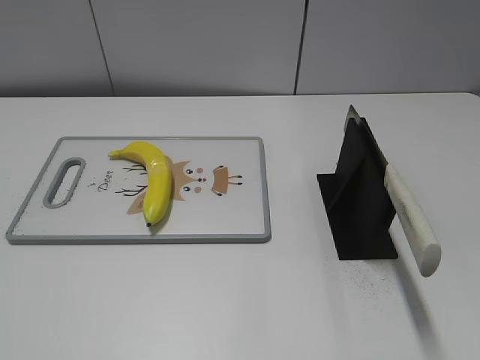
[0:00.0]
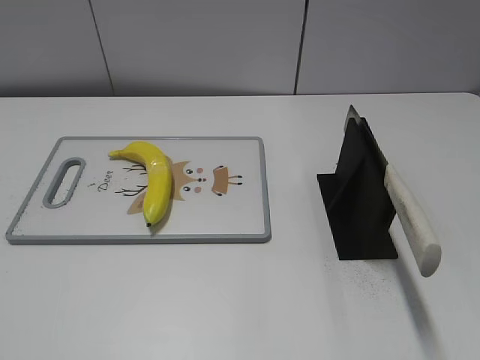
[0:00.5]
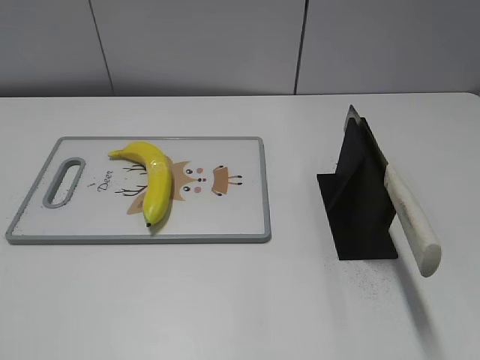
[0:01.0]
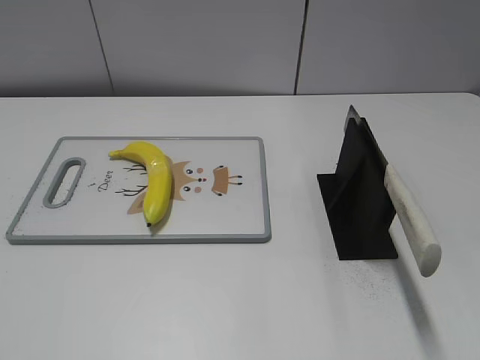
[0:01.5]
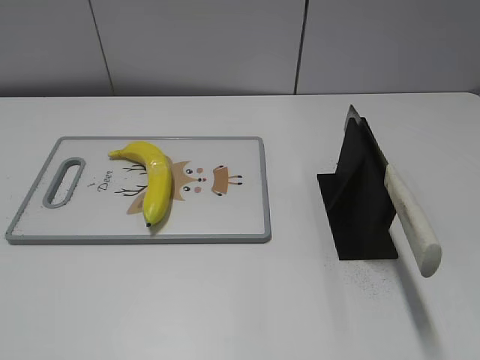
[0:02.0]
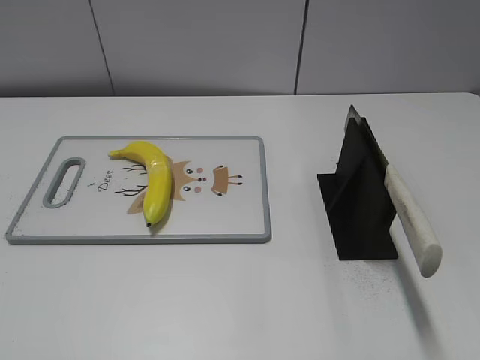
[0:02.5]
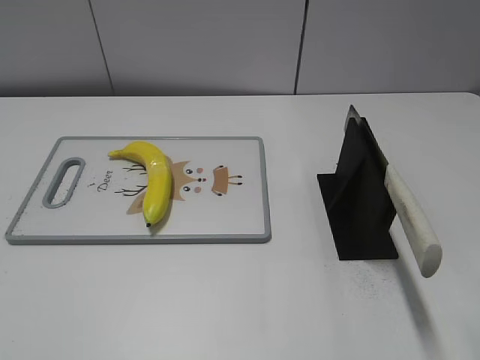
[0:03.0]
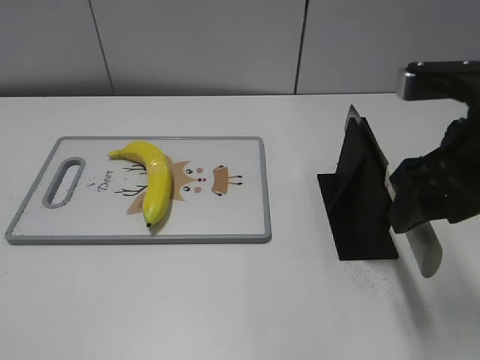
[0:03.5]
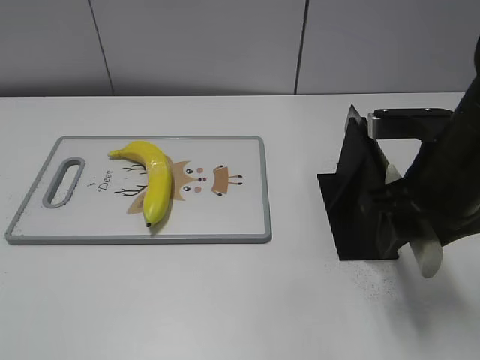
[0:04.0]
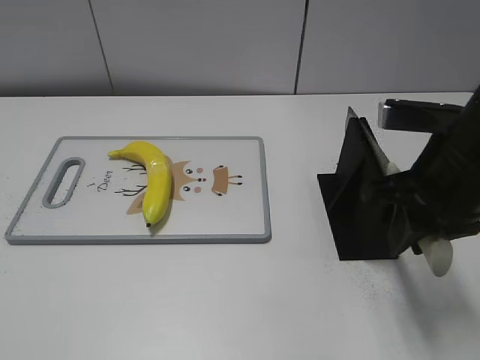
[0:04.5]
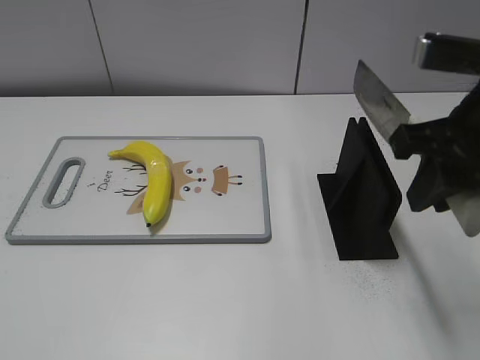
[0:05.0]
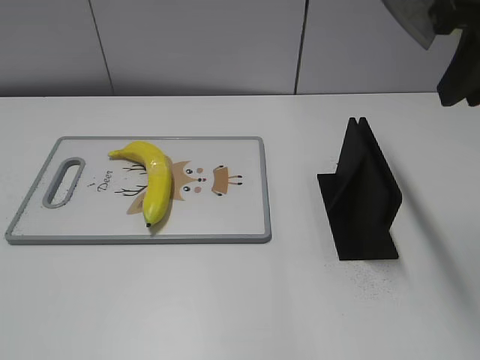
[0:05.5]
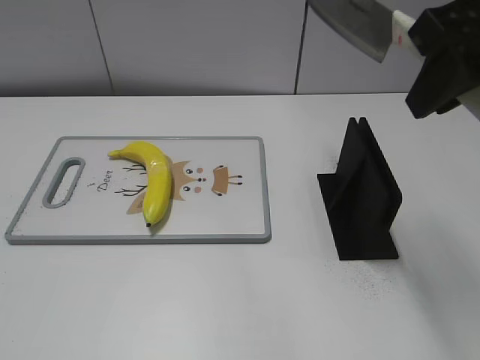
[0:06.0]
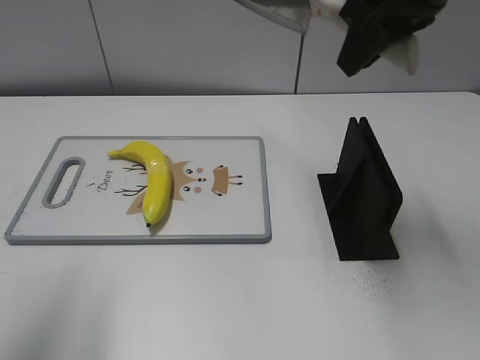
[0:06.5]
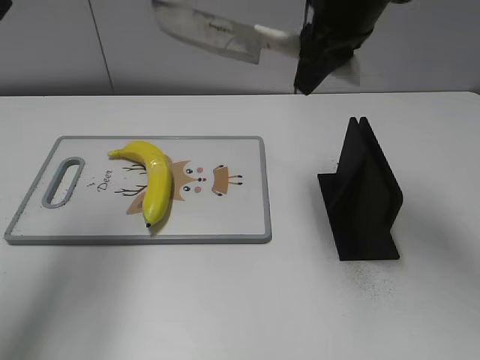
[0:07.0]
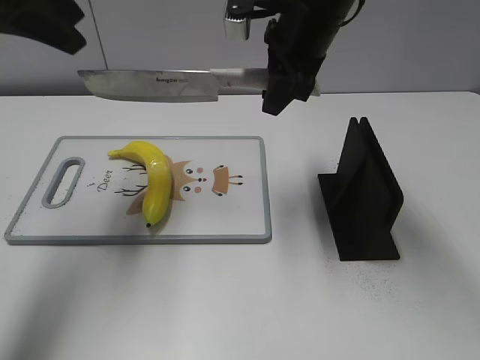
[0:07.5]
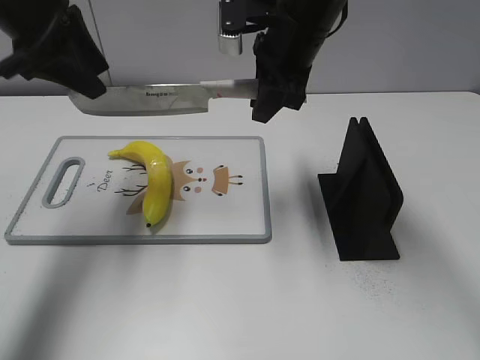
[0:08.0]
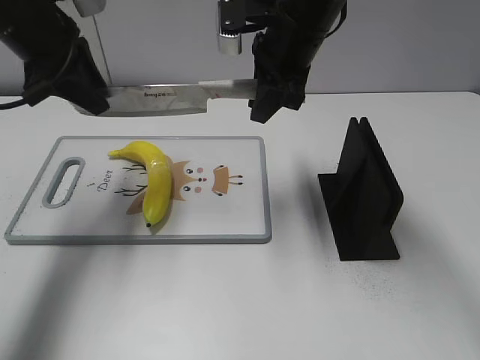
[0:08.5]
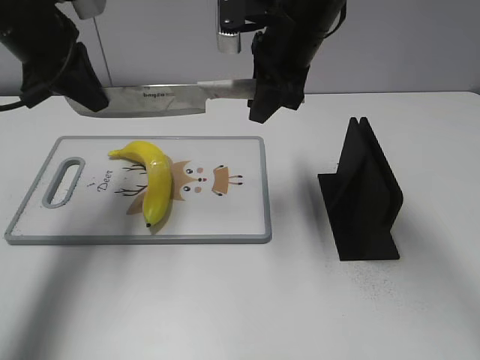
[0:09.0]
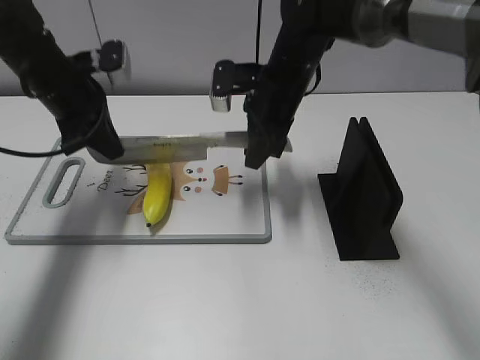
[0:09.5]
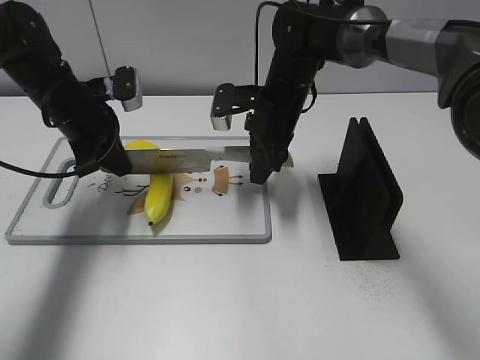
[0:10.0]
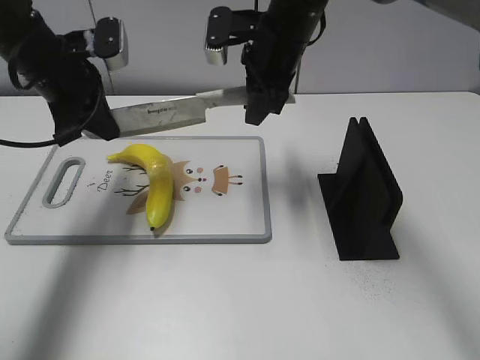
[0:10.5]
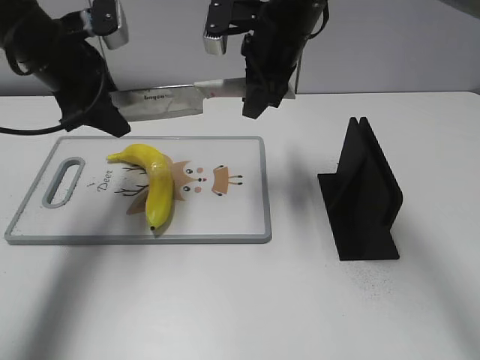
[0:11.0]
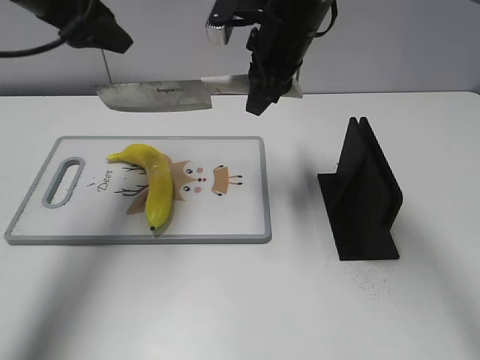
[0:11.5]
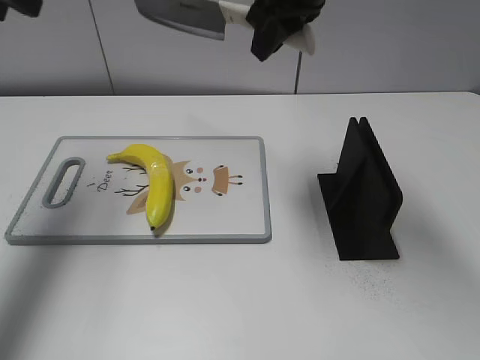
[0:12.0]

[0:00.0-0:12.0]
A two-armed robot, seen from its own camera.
Task of the whole recording: cut plastic banana.
Step, 0:00.0 to 0:05.0: Grab the knife handle with your right hand.
Step, 0:05.5 to 0:11.0: Hold the blade with your left hand.
0:02.0 to 0:04.0: The right gripper heads forward, to the left and downward, covering approximately 30 cm, and closes up.
0:04.0 to 0:06.0: The right gripper shifts some 15 cm upward, and closes.
0:06.0 to 0:08.0: The left gripper goes some 35 cm forward. The right gripper heads forward, to the left and downward, covering approximately 25 cm.
0:08.0 to 0:10.0: Both grippers move downward, about 15 cm. The left gripper closes its fingers.
0:10.0 to 0:12.0: The two grippers go approximately 20 cm upward. The left gripper opens its fingers.

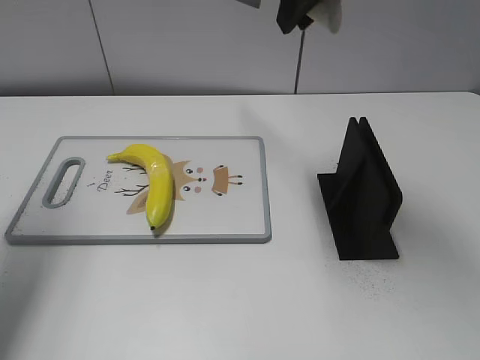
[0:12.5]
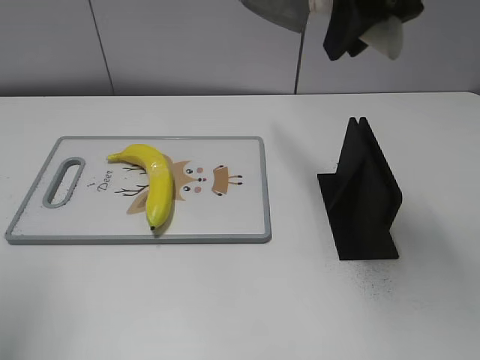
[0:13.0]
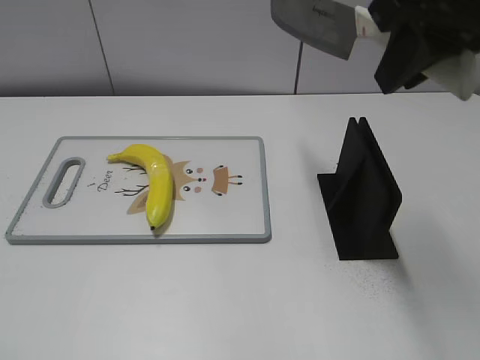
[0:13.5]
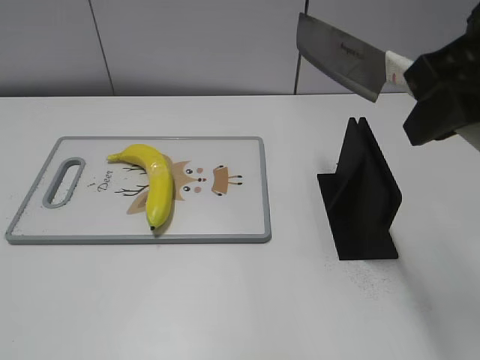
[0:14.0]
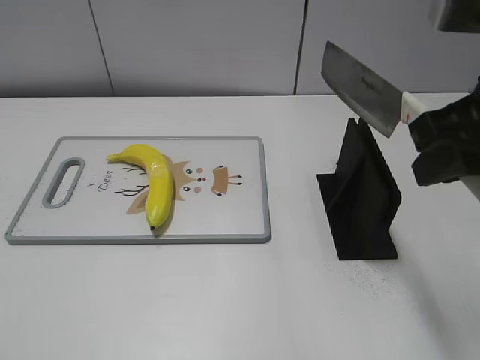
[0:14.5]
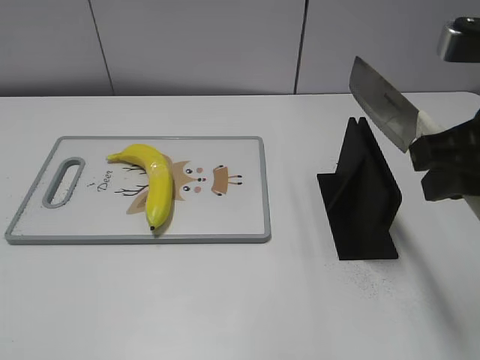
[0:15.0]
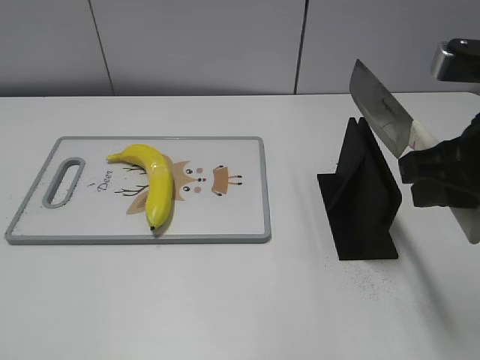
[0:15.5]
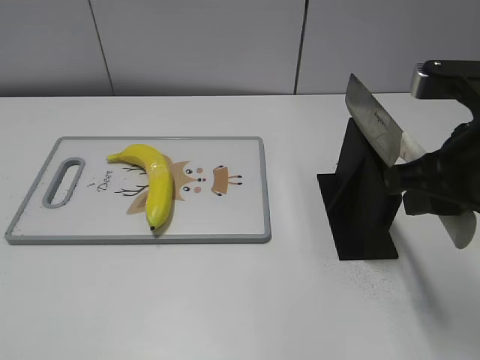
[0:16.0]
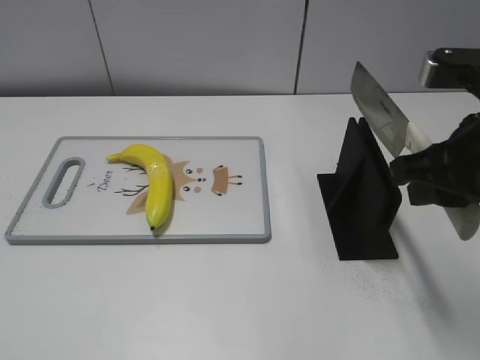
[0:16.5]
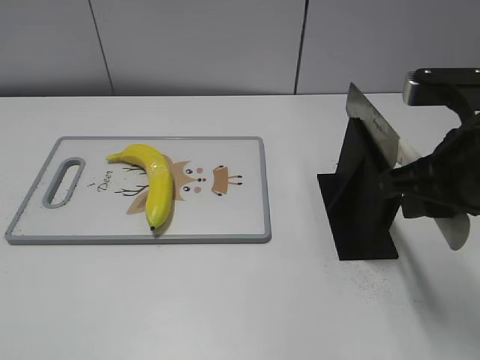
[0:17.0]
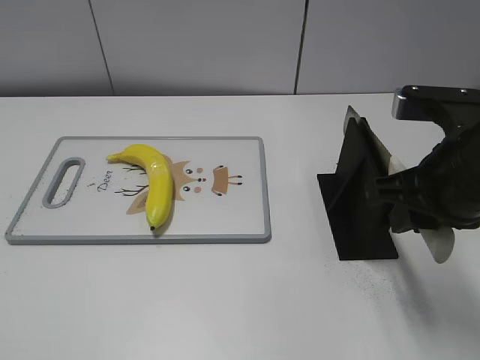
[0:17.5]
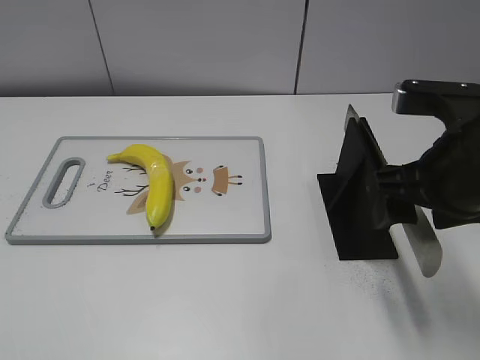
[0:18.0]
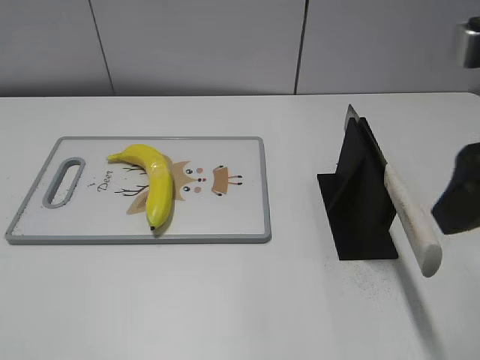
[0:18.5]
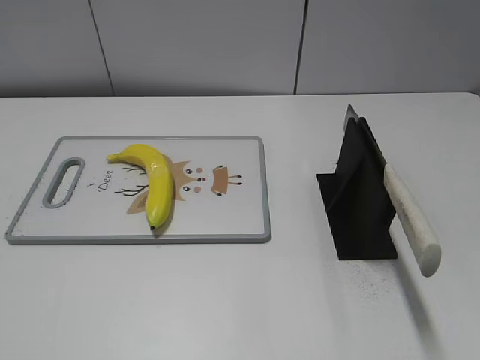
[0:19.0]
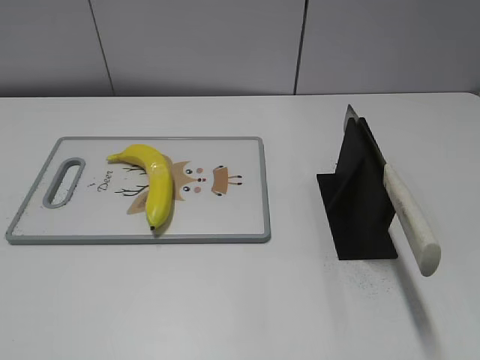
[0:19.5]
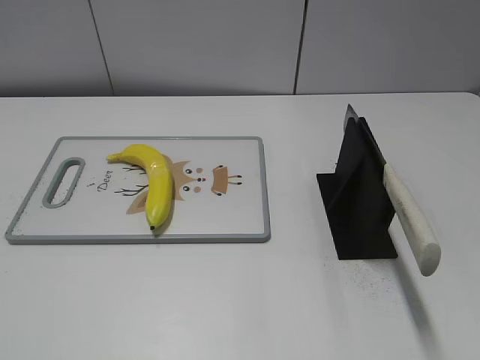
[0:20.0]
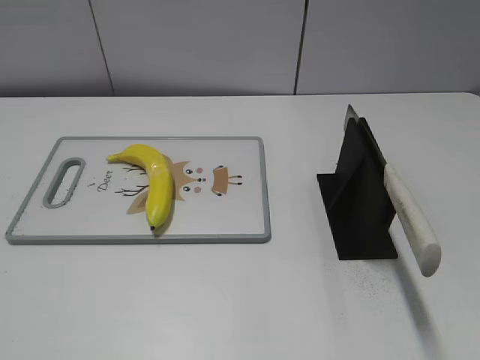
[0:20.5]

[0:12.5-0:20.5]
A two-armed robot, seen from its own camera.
Task of the whole recording: cut plastic banana.
Step, 0:12.5 to 0:13.0: Lift the knife with your right hand.
Step, 0:13.5 to 0:20.5: Place the knife on the storage rack with your right hand.
0:12.5 to 0:14.5: The left gripper goes some 30 cm backward. Meanwhile the right gripper shifts approximately 20 cm backward and to the right.
0:14.5 to 0:16.5: The right gripper travels downward by roughly 5 cm.
0:16.5 to 0:18.5: The right gripper goes some 5 cm upward, and opens up.
0:18.5 to 0:20.5: The right gripper goes approximately 20 cm backward and to the right.

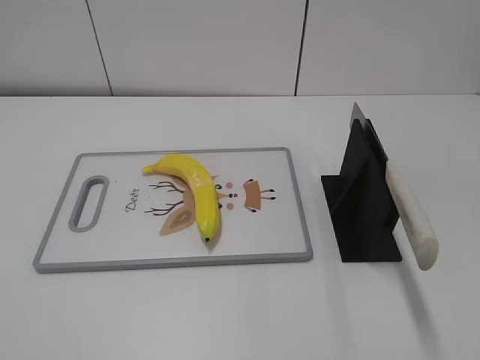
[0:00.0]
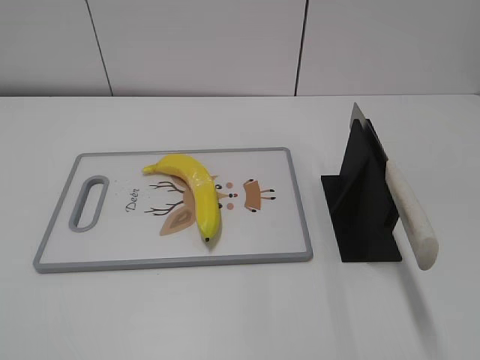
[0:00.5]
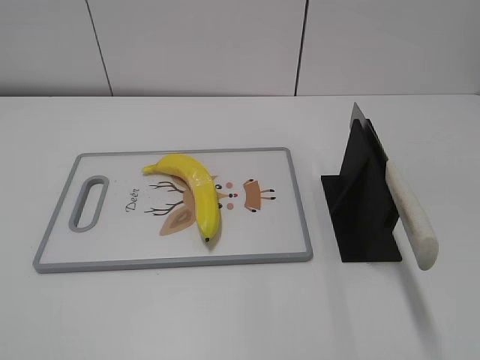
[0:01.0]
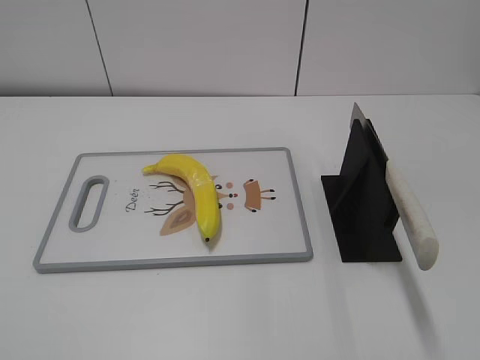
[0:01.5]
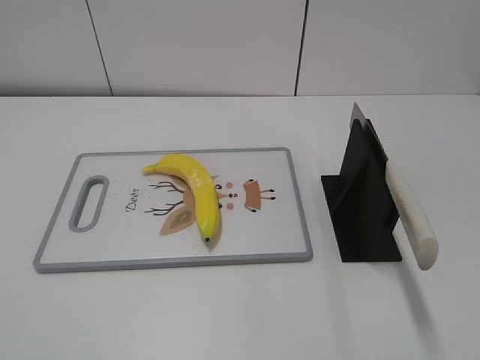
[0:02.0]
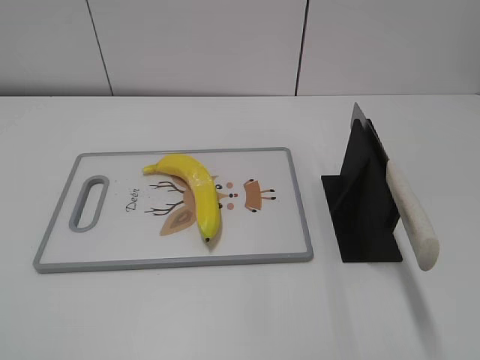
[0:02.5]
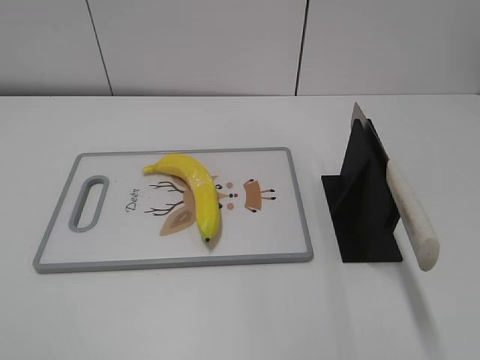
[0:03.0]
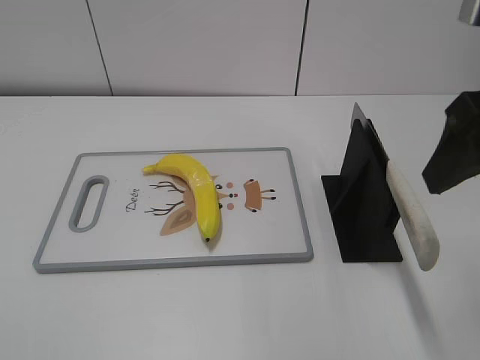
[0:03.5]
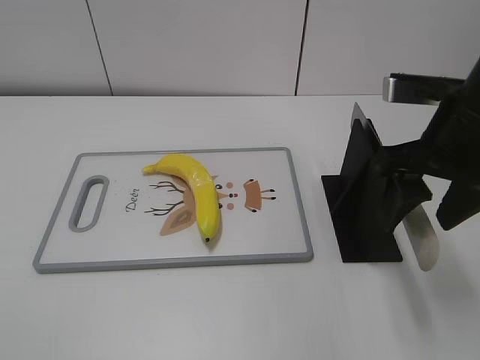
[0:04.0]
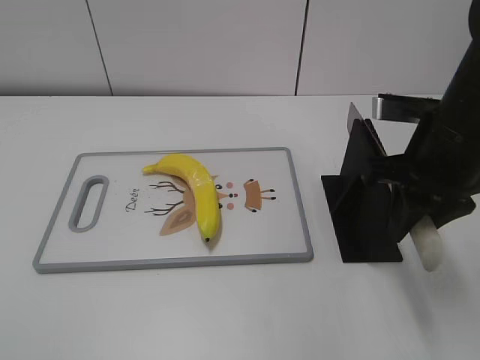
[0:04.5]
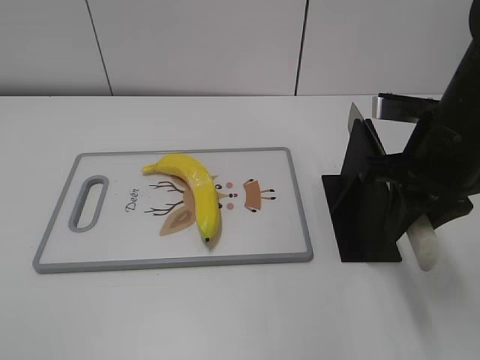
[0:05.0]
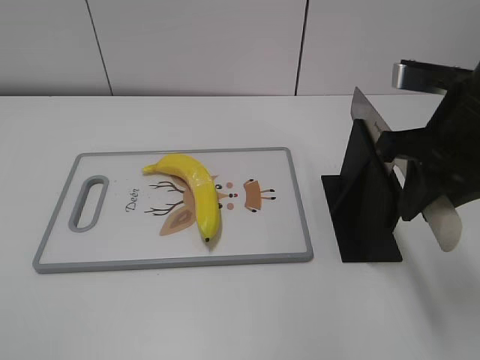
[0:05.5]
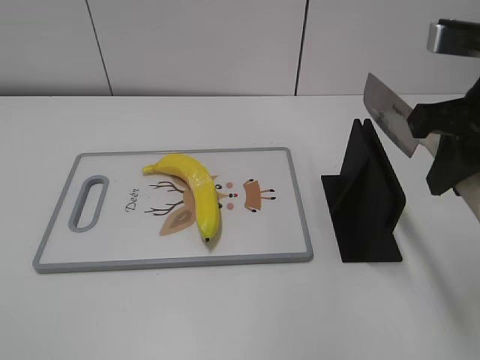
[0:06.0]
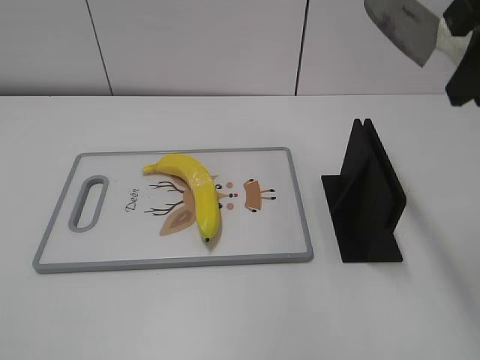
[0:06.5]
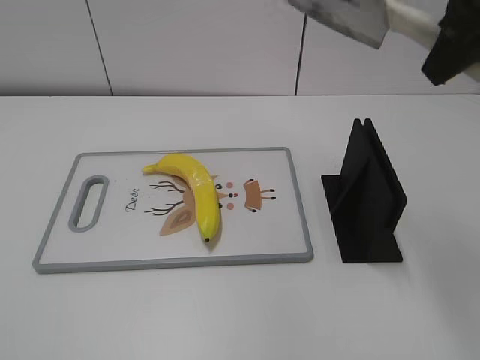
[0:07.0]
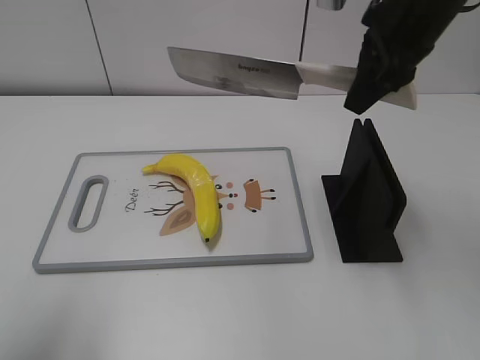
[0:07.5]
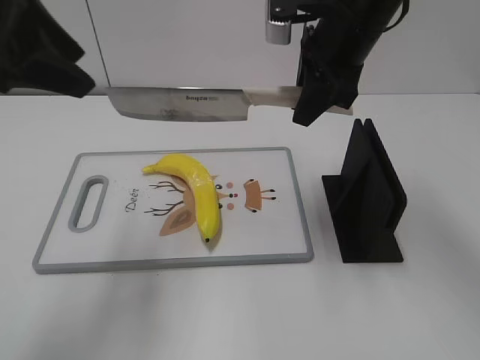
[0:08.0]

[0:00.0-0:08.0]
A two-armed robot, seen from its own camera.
Task of the whole recording: cut plastic banana.
Step, 0:00.0 to 0:05.5: Grab the knife handle with your right hand.
0:02.0 to 0:04.0: The right gripper heads forward, covering roughly 25 cm.
0:04.0 to 0:06.0: The right gripper heads upward, covering some 5 cm, and closes its fingers.
0:06.0 to 0:08.0: The left gripper shifts roughly 30 cm forward, while the right gripper travels forward and to the left by about 15 cm.
